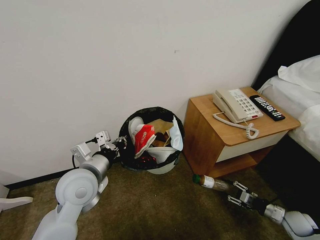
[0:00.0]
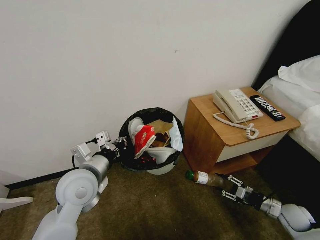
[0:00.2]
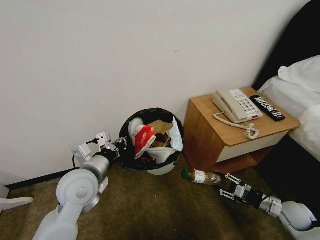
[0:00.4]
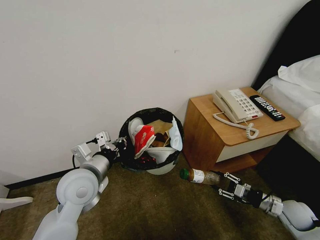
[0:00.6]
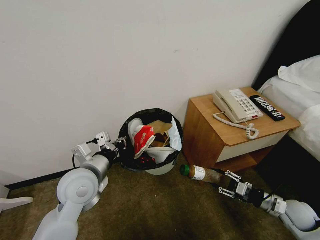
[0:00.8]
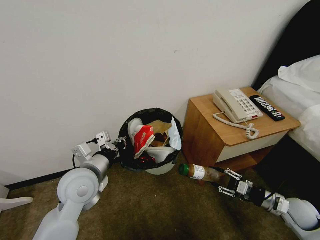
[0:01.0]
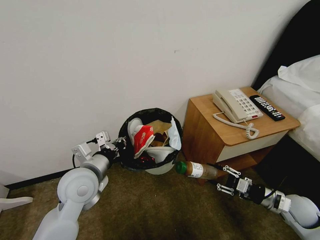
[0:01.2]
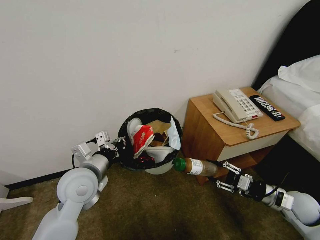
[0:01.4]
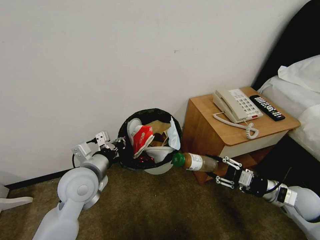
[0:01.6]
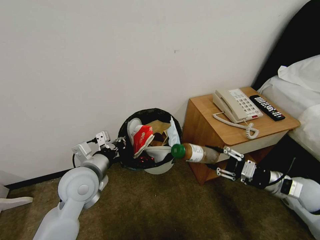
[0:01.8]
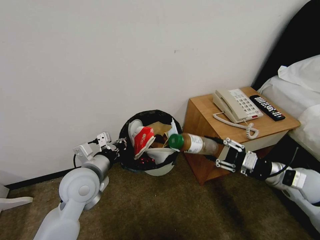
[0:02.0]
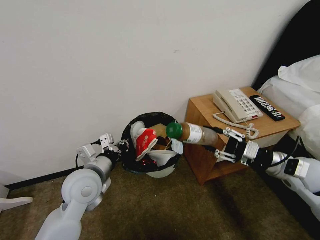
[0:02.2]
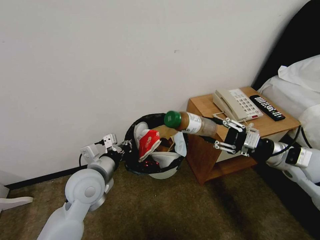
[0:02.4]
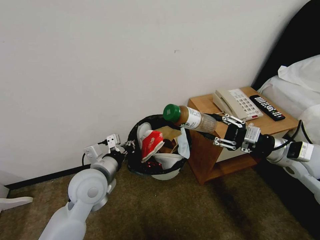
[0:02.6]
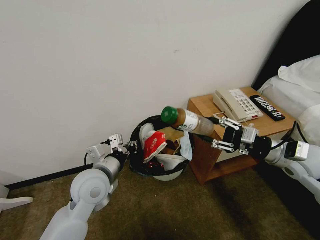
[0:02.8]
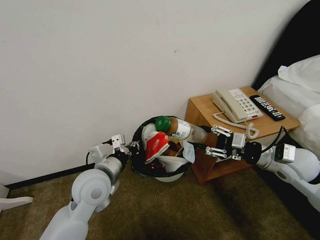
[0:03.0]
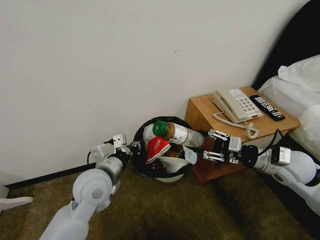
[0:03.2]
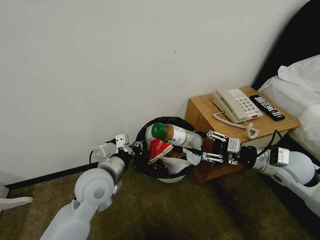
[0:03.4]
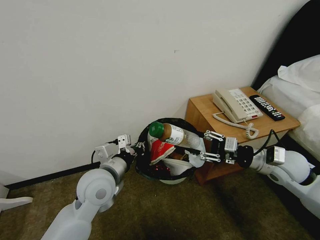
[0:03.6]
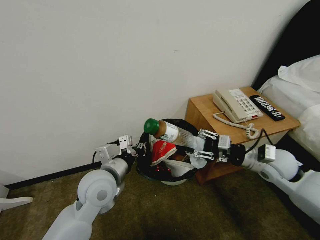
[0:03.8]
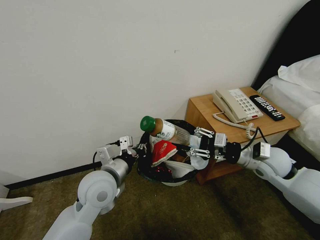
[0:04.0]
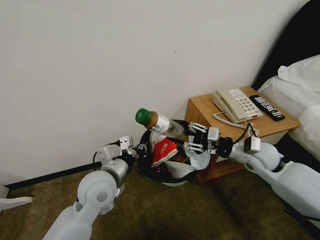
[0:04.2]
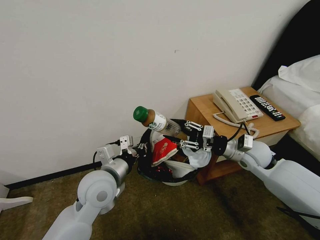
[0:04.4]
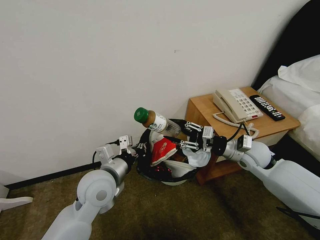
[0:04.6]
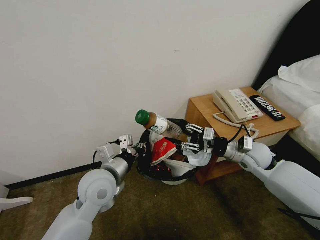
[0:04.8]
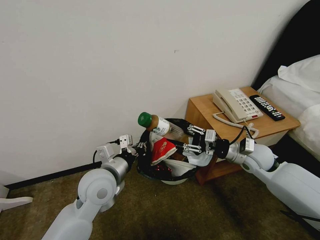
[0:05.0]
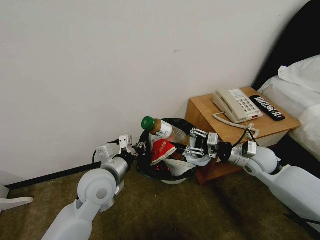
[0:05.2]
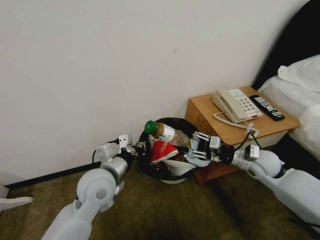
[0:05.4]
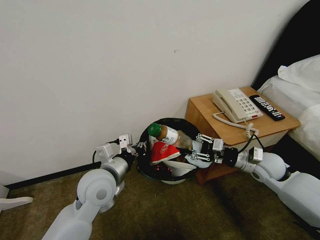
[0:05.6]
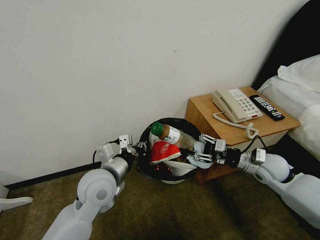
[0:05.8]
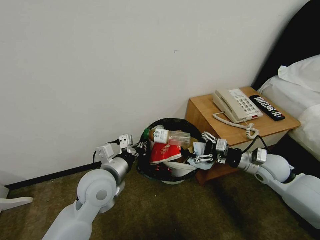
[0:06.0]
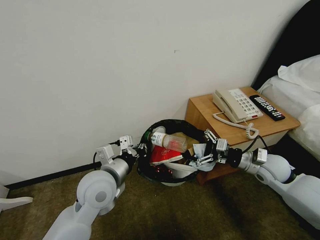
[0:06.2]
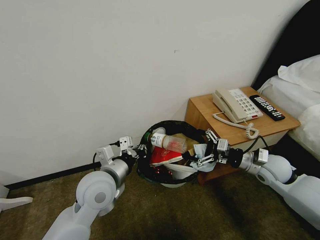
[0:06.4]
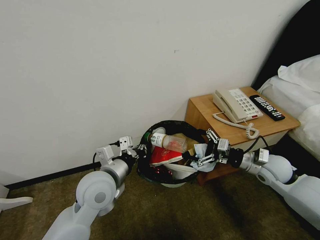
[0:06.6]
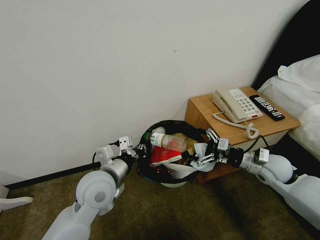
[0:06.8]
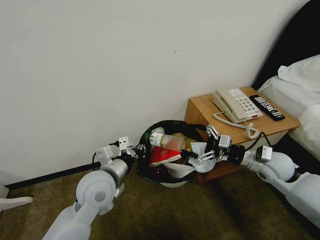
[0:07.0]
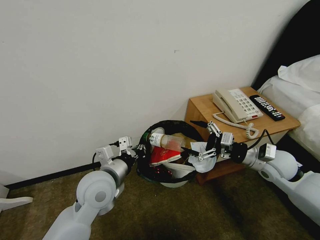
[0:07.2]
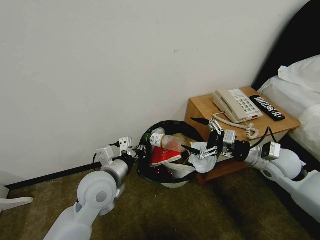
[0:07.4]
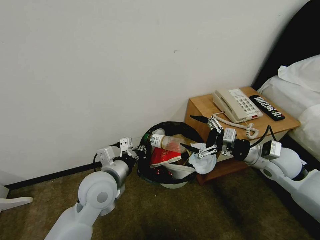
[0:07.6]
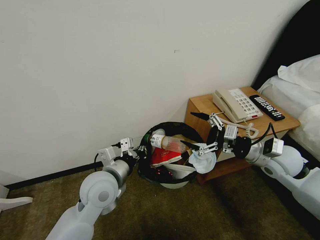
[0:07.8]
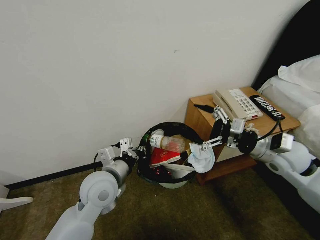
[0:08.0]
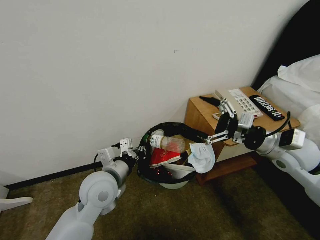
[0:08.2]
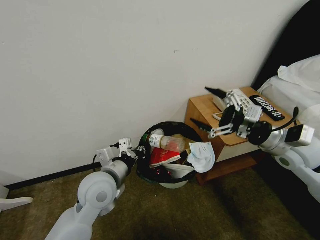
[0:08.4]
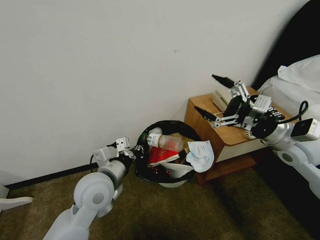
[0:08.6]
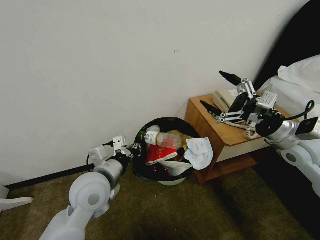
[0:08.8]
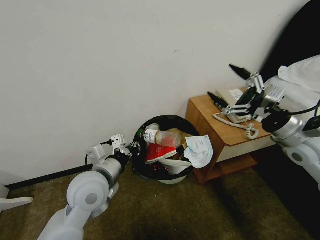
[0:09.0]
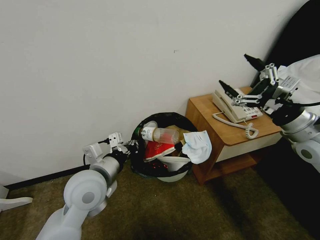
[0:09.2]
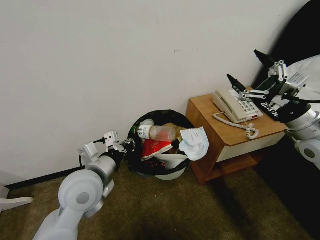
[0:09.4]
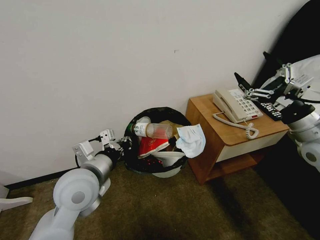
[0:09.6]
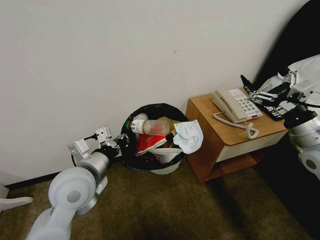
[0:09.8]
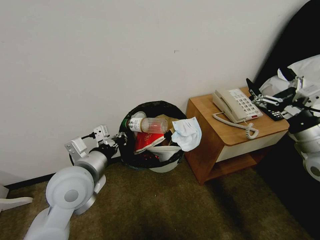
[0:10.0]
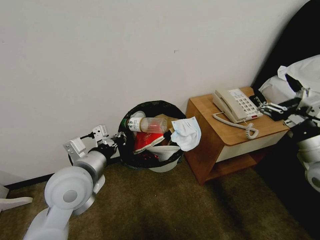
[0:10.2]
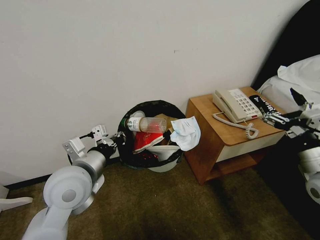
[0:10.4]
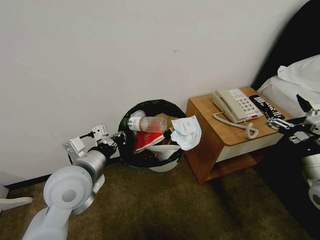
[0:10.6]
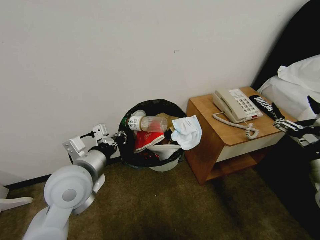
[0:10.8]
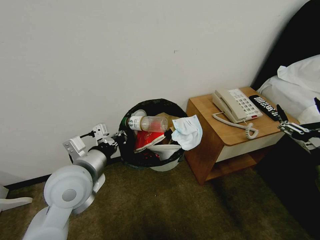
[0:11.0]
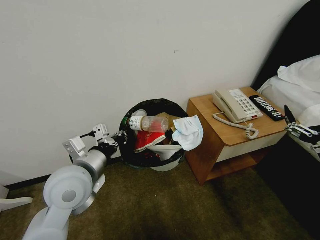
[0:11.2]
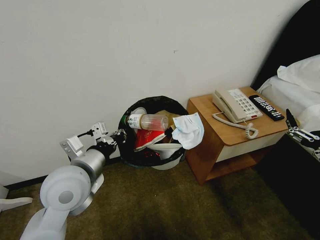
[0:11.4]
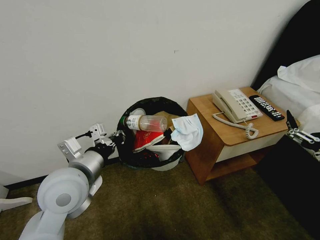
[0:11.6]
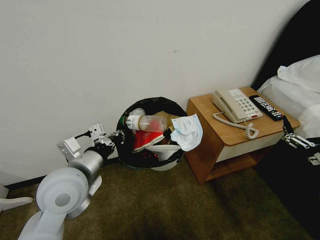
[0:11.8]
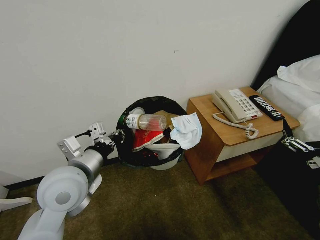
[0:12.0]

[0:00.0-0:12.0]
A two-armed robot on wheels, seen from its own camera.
Task of the whole recording: Pick up the trash bin, then pick up the garbage from the floor and place it into the trash bin.
0:00.0 to 0:01.6: The right gripper is displaced upward and to the left by some 20 cm.
0:01.6 to 0:03.0: The right gripper travels upward and forward by approximately 15 cm.
0:03.0 to 0:04.4: The right gripper shifts roughly 10 cm to the left and forward.
0:04.4 to 0:06.0: The right gripper heads to the right, covering some 5 cm.
0:06.0 to 0:07.6: The right gripper moves upward, about 5 cm.
0:07.6 to 0:09.0: The right gripper moves upward, about 10 cm.
0:09.0 to 0:10.4: The right gripper is displaced backward and downward by roughly 10 cm.
0:10.4 to 0:12.0: The right gripper heads backward, covering approximately 10 cm.

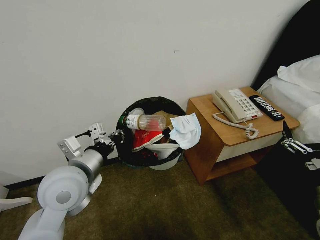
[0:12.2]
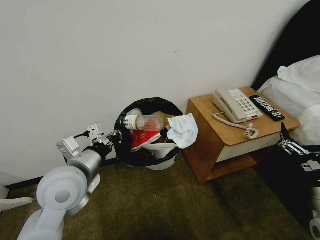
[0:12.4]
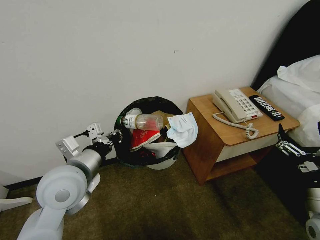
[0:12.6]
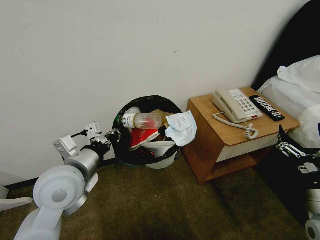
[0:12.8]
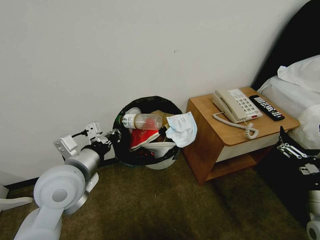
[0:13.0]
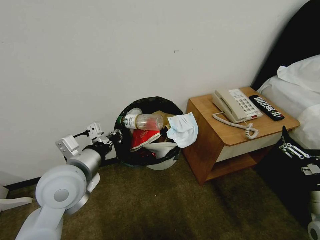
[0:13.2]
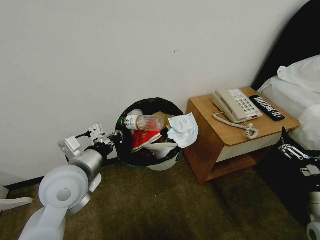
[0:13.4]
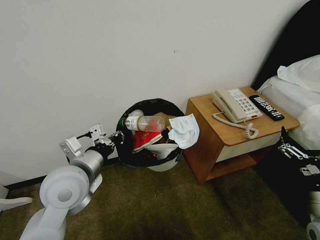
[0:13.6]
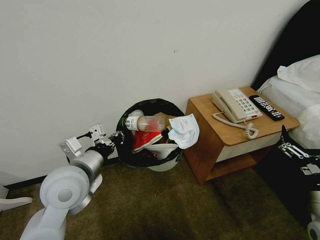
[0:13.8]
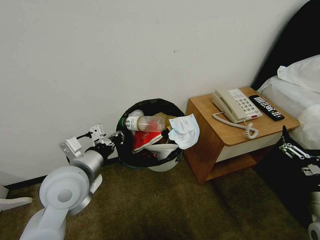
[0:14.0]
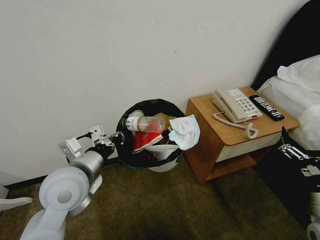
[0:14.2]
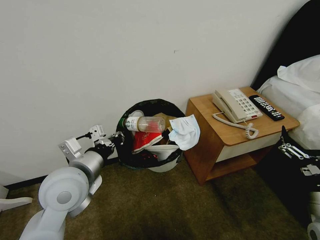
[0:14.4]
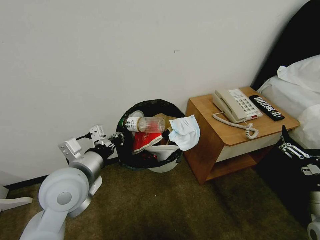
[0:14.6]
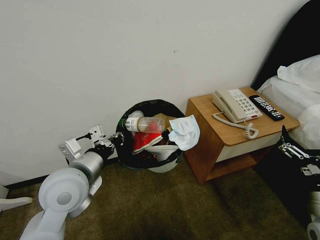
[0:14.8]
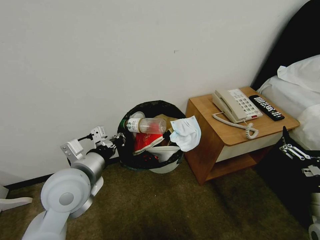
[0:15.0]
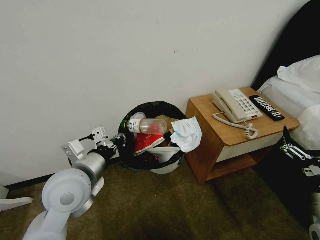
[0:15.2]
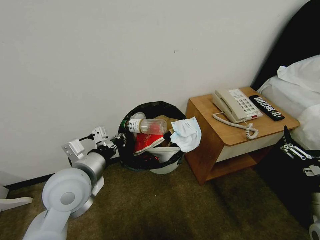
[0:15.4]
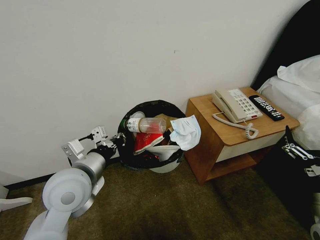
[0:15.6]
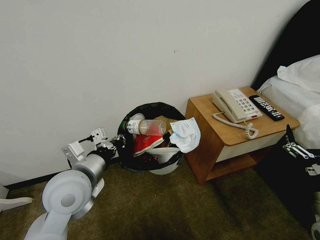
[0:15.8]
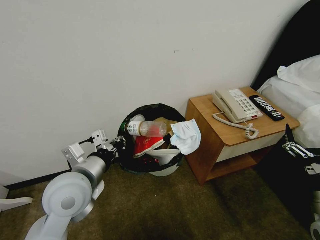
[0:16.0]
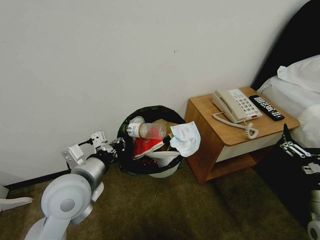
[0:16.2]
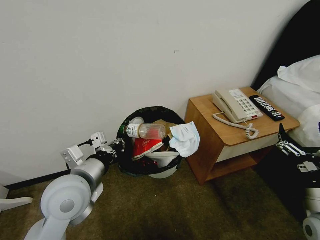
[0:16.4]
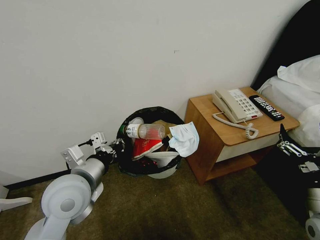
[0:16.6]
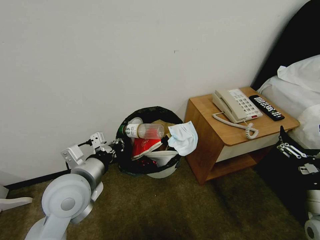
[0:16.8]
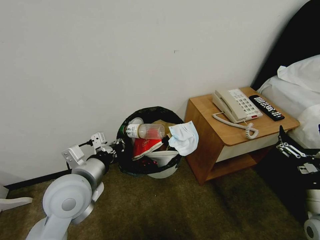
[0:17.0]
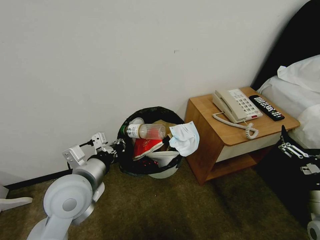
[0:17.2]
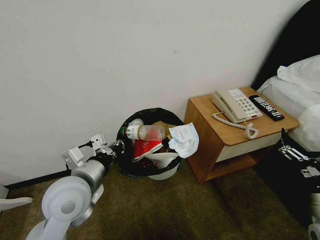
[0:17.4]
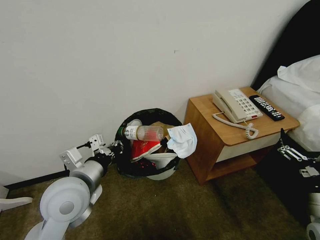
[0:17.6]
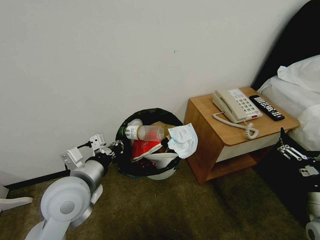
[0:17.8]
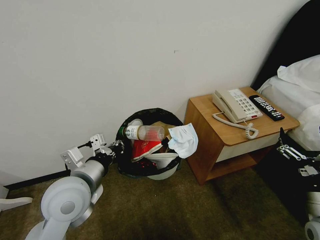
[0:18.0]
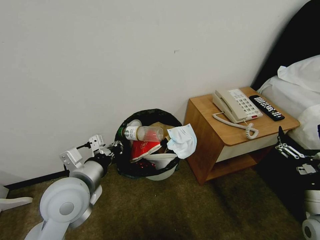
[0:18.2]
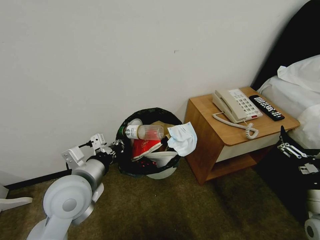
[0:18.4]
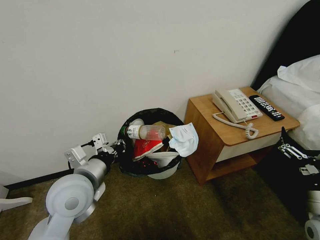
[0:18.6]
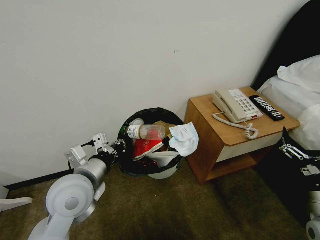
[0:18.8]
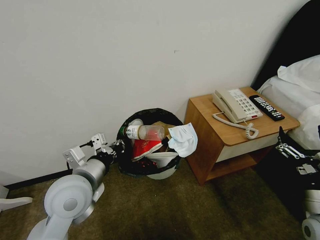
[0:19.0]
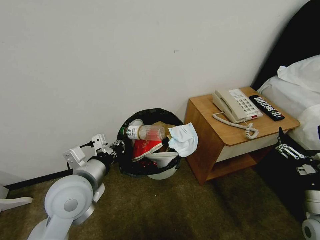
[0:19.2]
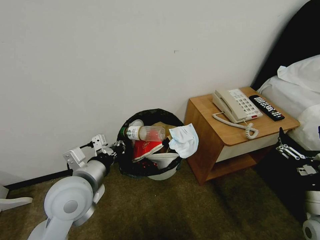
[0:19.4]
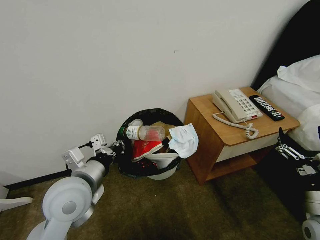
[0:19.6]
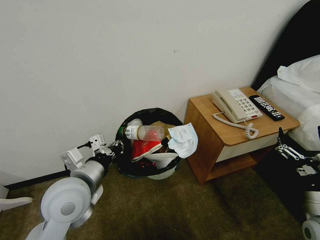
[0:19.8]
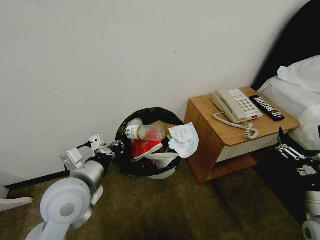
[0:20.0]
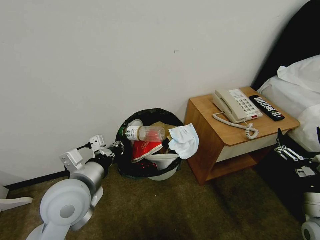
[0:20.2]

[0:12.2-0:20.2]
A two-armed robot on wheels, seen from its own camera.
Task of the whole recording: Pick up the trash bin, then pick up the garbage from the floor and place it into the trash bin.
0:12.2 to 0:13.8: There are only small adjustments of the grippers.
0:13.8 to 0:15.4: Neither gripper changes place.
0:15.4 to 0:17.0: The grippers move only a little.
0:17.0 to 0:18.6: The two grippers keep their place.
0:18.6 to 0:20.2: The grippers stay close to where they were, moving slightly.

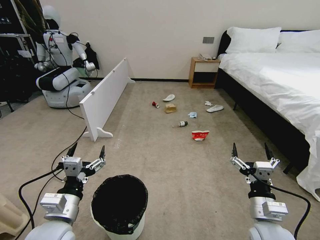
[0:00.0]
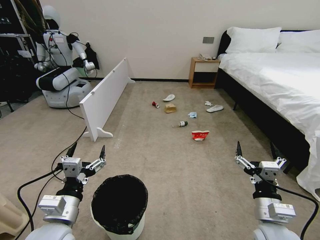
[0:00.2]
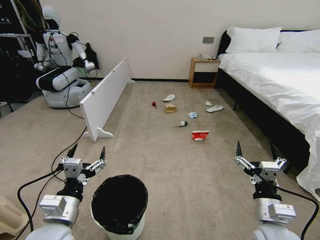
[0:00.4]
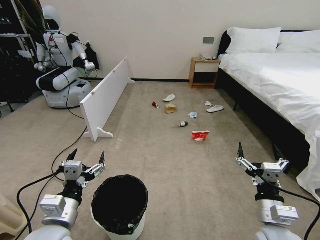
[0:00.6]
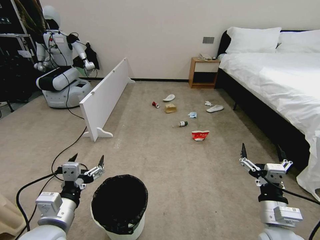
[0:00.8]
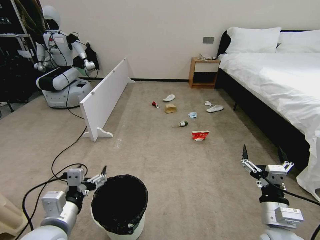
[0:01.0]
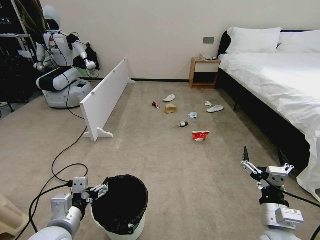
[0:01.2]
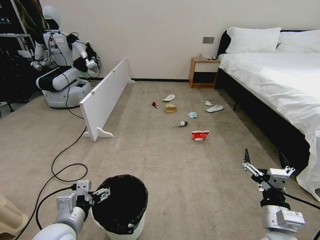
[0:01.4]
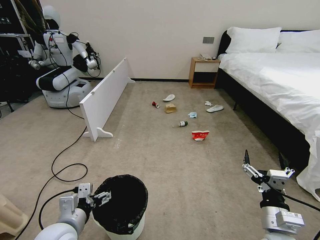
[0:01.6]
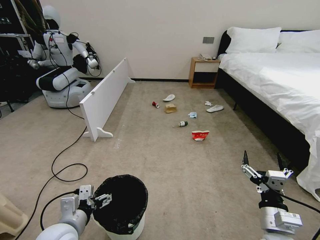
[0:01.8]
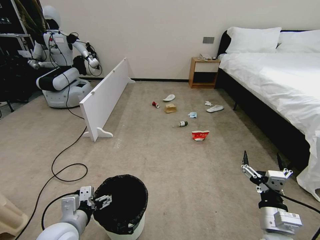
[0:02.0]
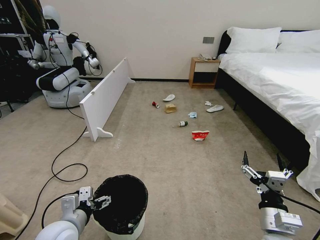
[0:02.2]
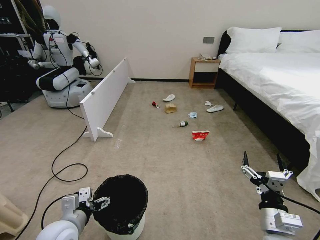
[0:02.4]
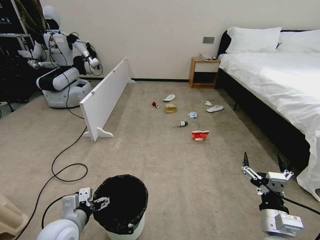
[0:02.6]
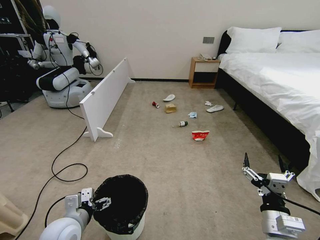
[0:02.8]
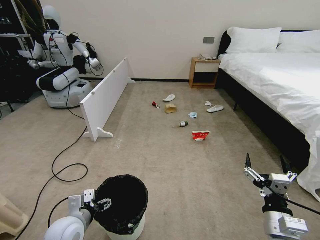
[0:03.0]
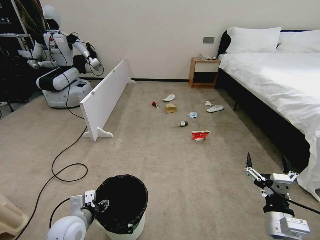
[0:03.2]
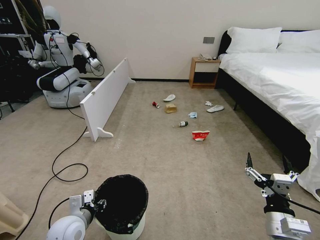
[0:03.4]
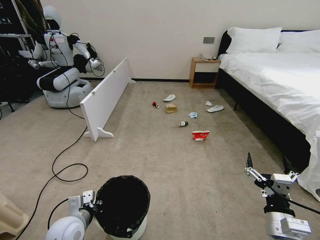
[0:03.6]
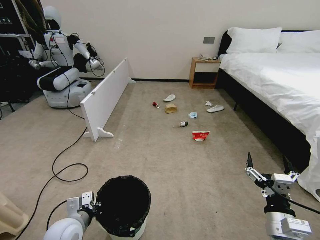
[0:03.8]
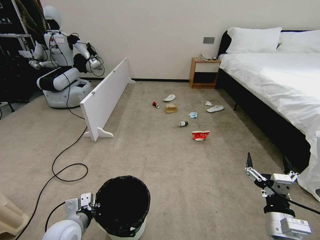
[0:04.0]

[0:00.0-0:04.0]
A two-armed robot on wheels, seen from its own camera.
Task of the whole recording: Pick up the trash bin, then pick up the garbage from the floor and place it into the trash bin.
0:01.4 to 0:02.6: The grippers stay close to where they were, moving slightly.
0:02.6 to 0:04.0: The left gripper closes.
